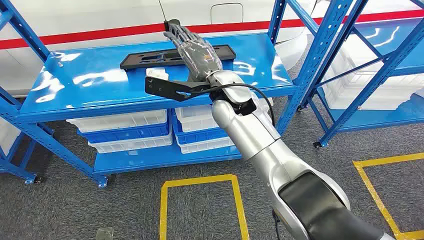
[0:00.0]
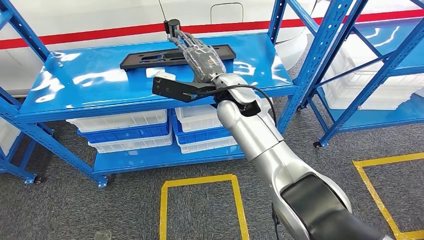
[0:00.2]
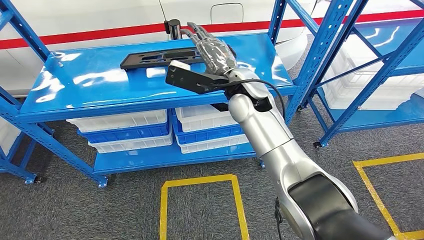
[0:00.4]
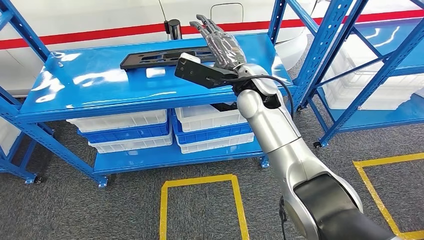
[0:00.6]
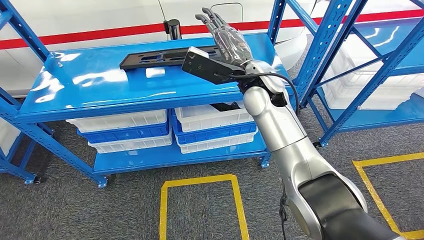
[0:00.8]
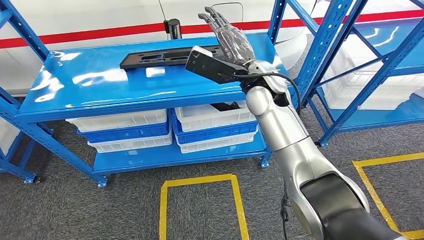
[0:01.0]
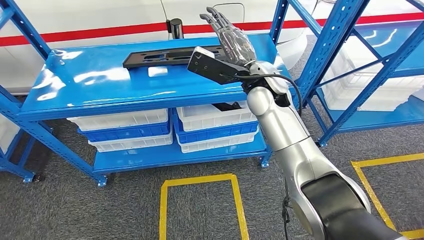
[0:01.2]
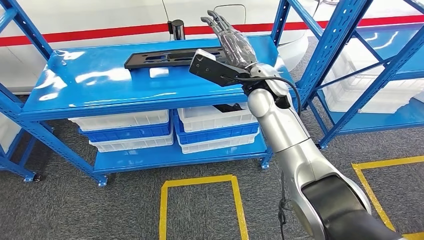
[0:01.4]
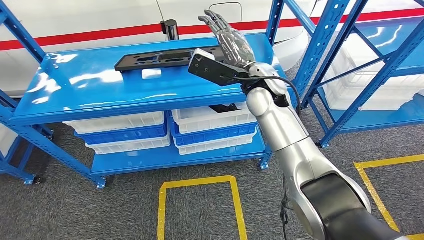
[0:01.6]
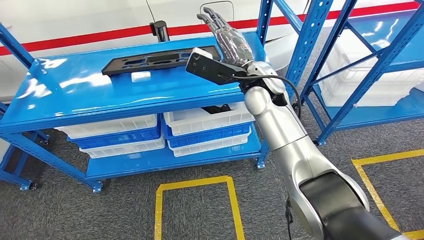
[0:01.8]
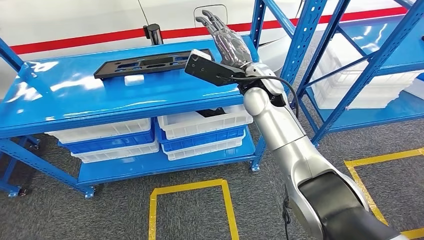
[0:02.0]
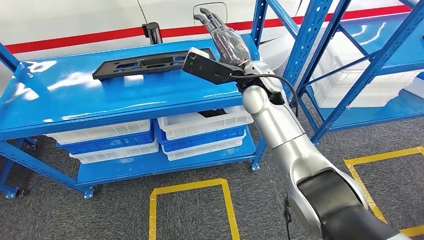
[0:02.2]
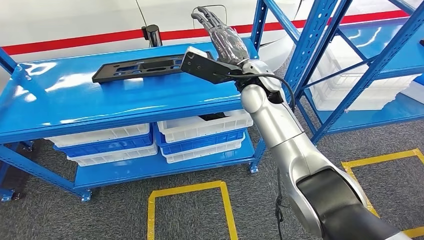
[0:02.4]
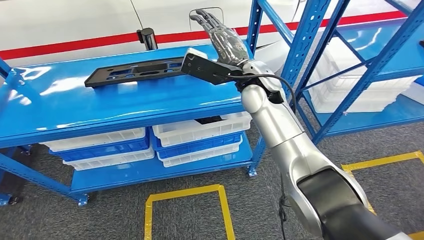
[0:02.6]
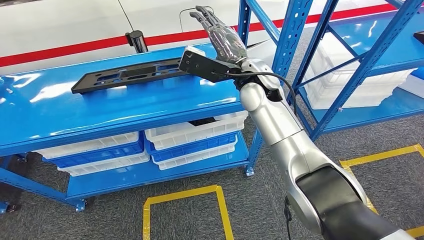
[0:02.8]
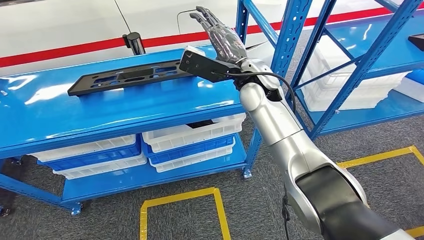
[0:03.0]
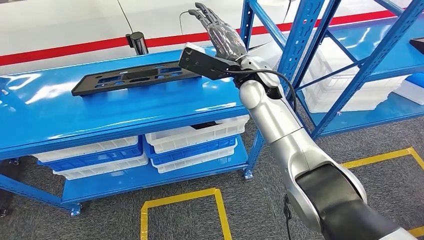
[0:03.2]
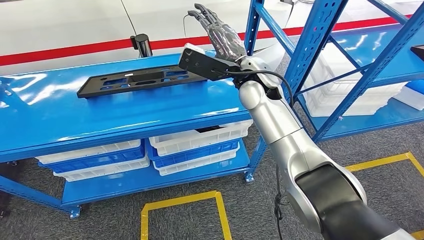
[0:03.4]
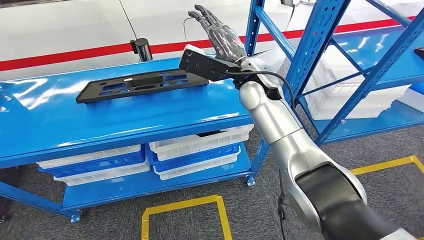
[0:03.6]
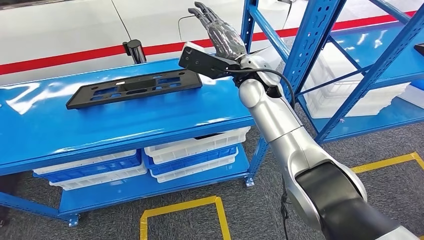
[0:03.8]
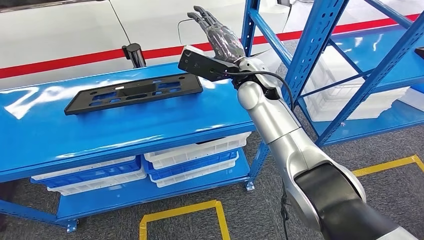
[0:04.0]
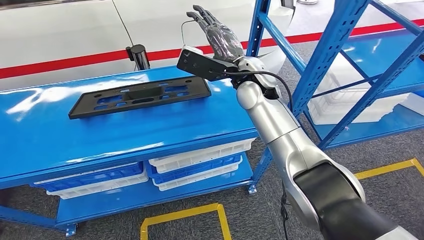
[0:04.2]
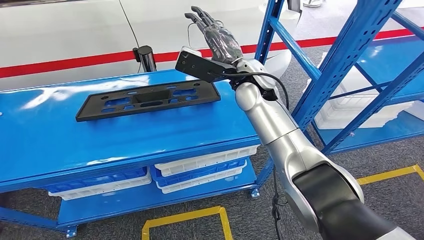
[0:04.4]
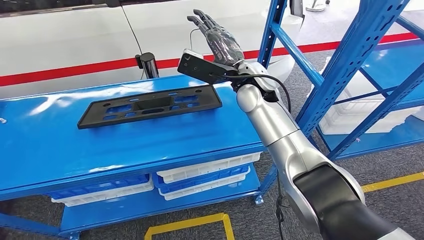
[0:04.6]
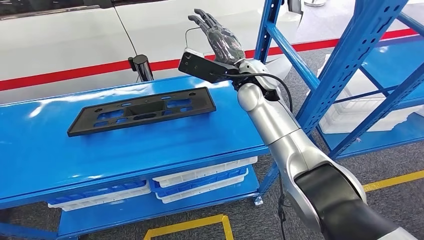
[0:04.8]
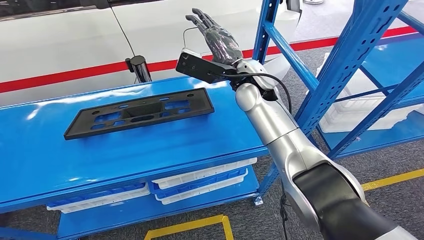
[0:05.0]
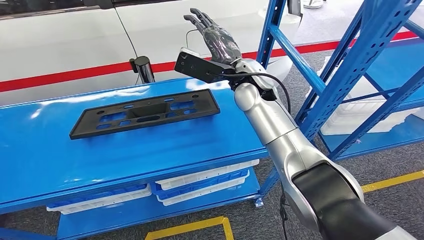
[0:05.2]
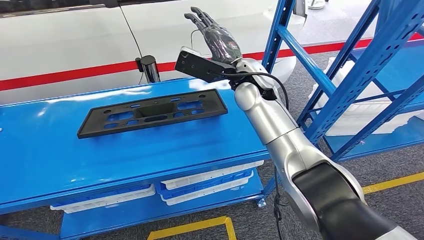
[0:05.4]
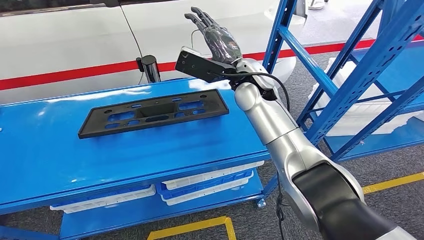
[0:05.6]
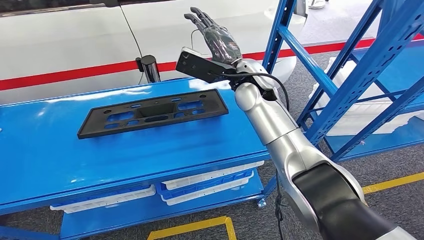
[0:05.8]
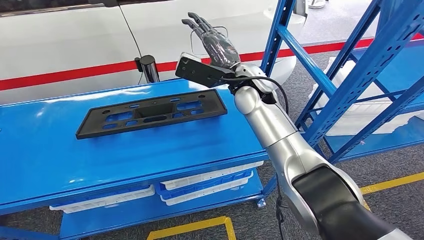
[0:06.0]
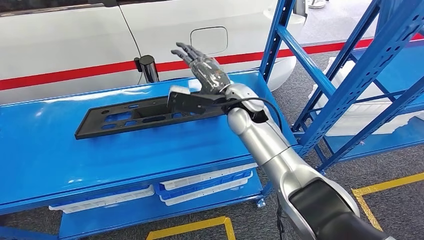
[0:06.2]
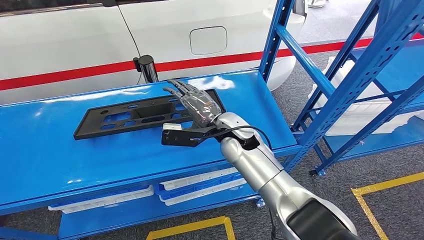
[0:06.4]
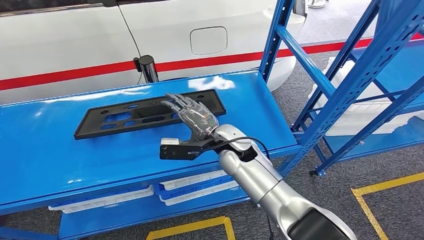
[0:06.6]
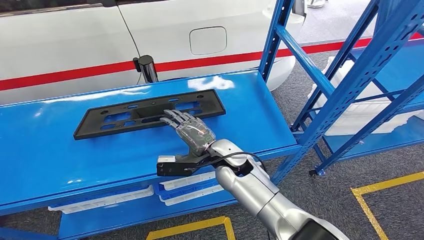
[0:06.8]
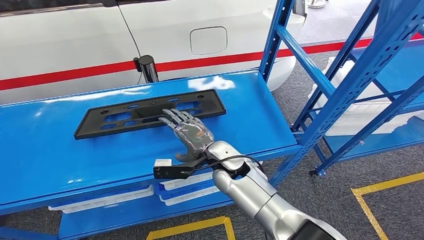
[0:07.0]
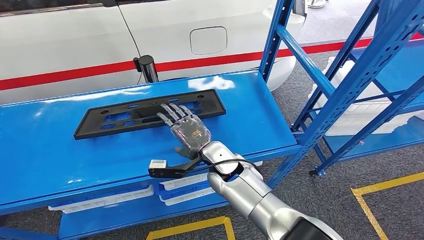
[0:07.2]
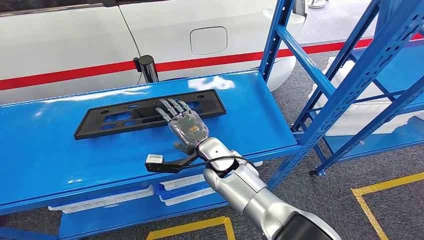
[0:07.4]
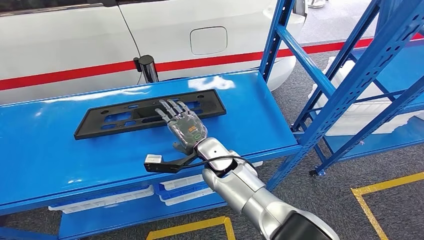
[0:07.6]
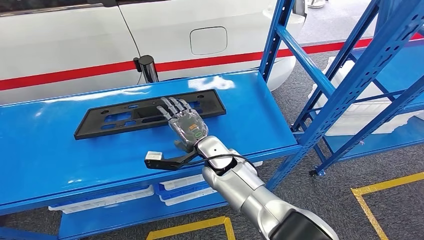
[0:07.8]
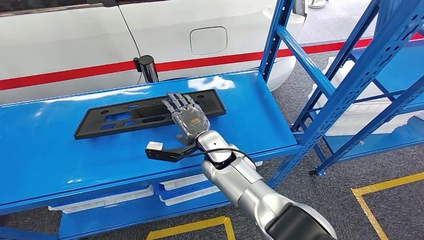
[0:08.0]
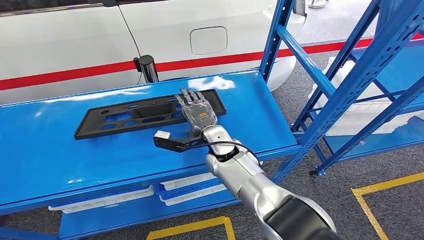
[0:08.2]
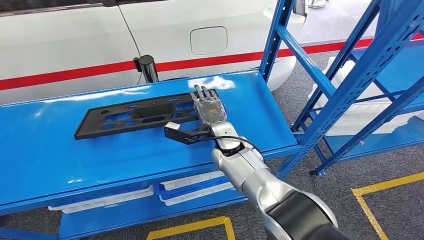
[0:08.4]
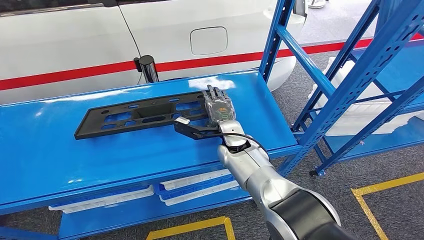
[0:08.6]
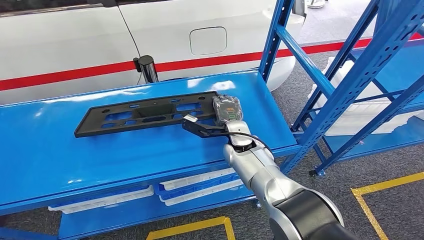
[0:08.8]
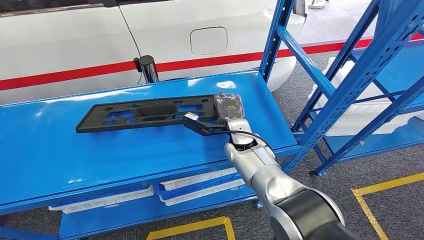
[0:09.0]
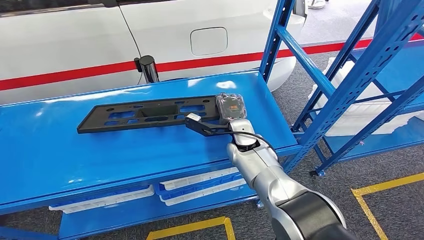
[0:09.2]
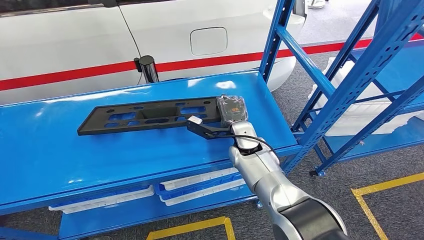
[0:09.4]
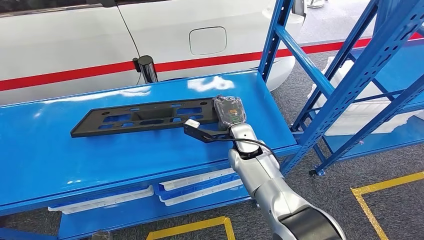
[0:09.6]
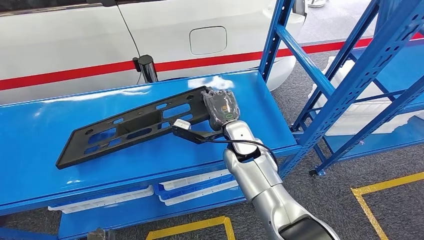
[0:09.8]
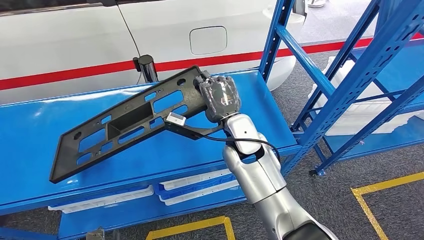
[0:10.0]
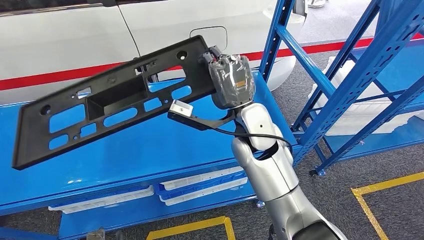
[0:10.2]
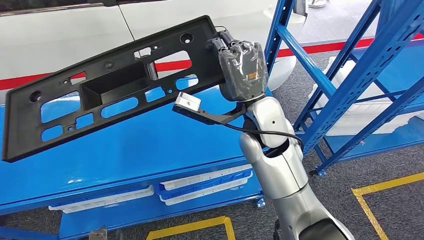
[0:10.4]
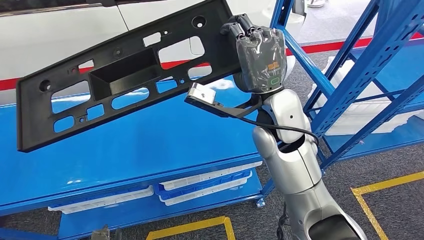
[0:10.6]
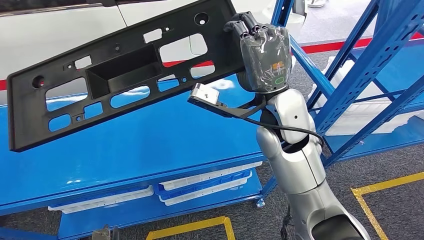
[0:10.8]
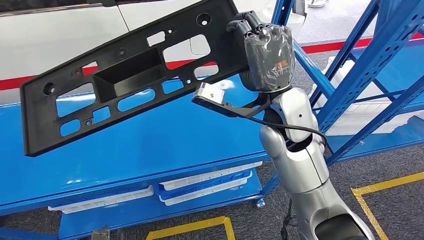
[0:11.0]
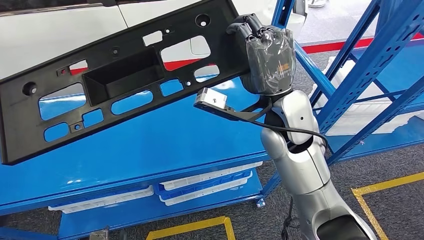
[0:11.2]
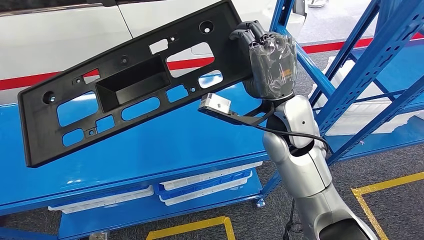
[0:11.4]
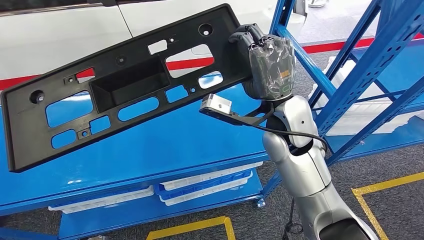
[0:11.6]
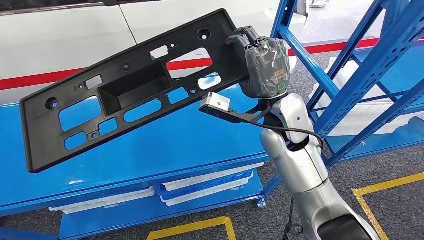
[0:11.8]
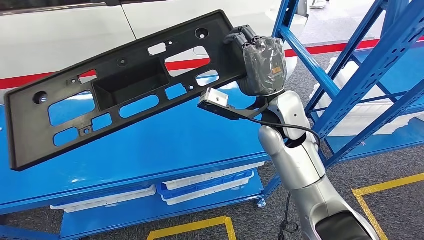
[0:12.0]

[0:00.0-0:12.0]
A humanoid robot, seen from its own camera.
0:06.0 to 0:07.6: The right hand heads downward, to the left and backward, covering some 20 cm.
0:07.6 to 0:09.0: The right hand is displaced to the right and forward by about 10 cm.

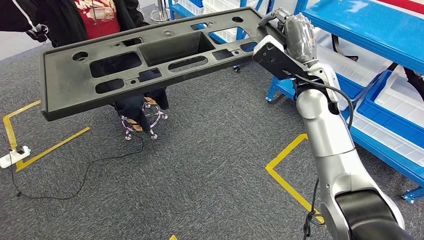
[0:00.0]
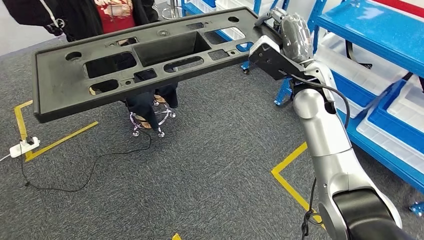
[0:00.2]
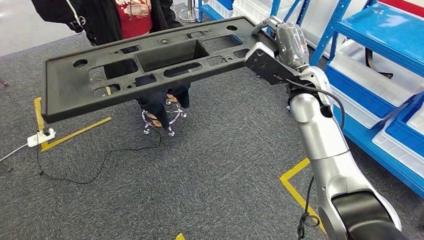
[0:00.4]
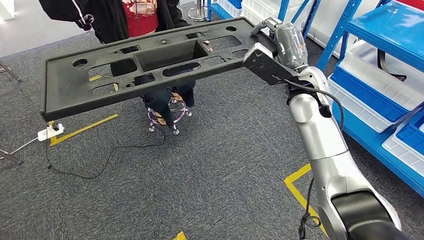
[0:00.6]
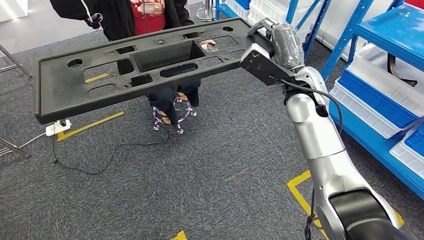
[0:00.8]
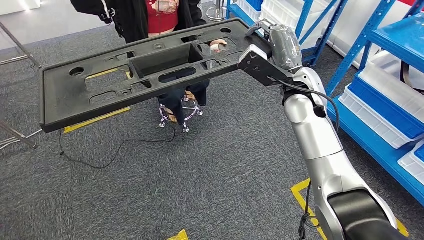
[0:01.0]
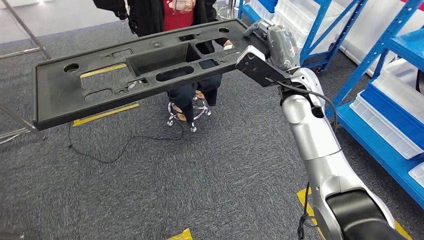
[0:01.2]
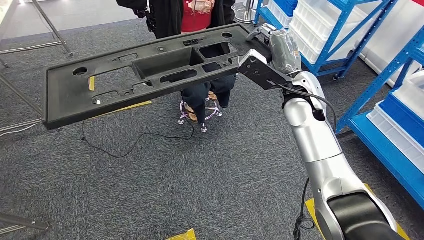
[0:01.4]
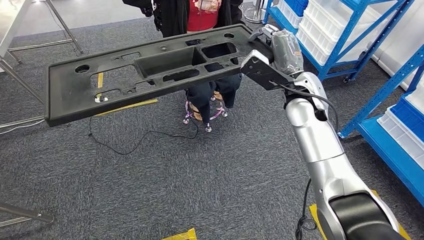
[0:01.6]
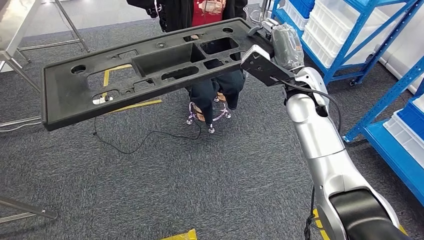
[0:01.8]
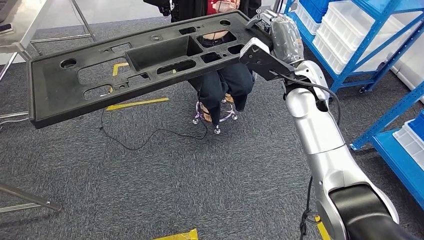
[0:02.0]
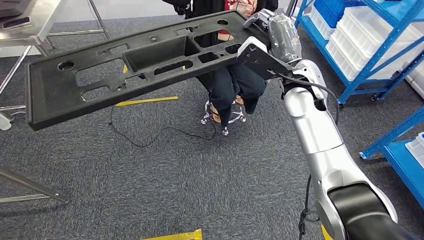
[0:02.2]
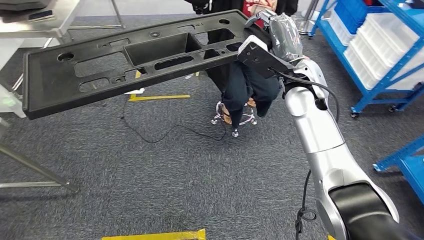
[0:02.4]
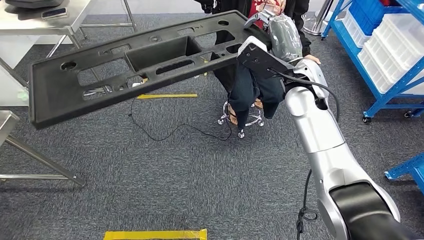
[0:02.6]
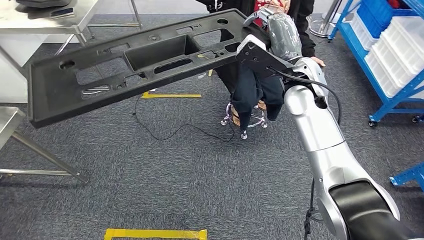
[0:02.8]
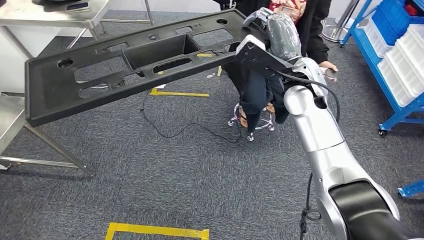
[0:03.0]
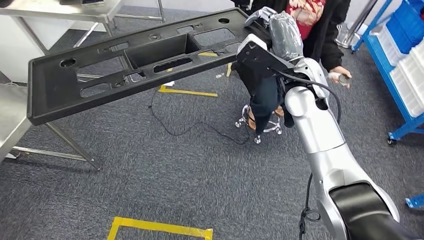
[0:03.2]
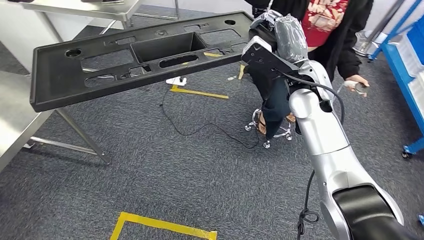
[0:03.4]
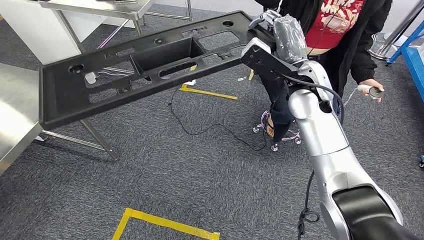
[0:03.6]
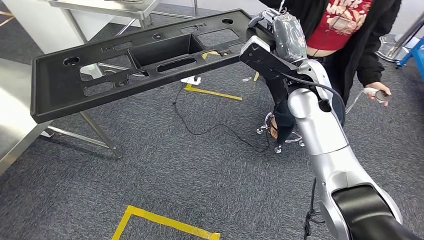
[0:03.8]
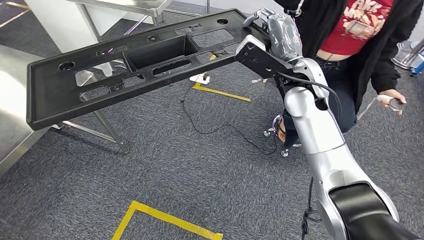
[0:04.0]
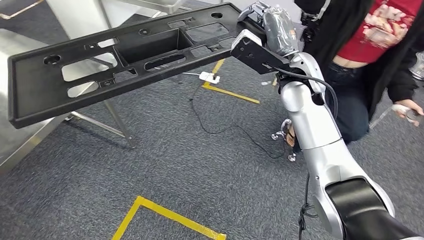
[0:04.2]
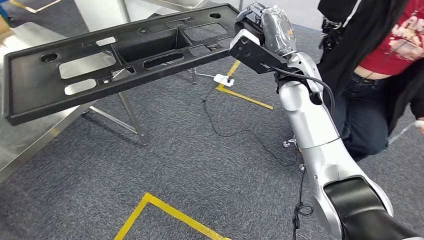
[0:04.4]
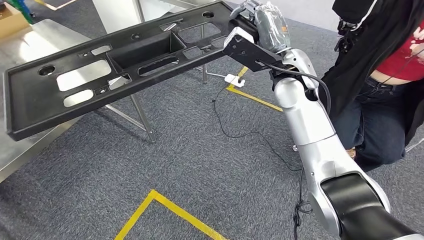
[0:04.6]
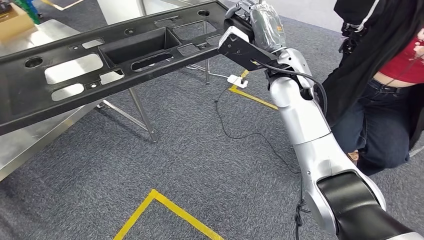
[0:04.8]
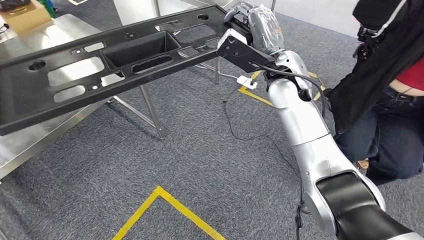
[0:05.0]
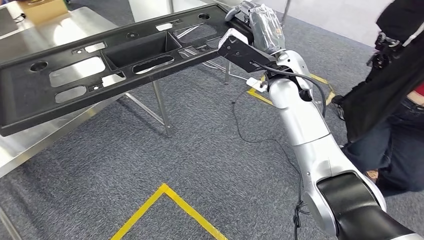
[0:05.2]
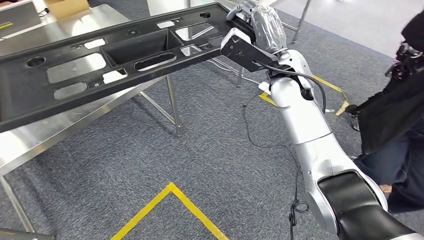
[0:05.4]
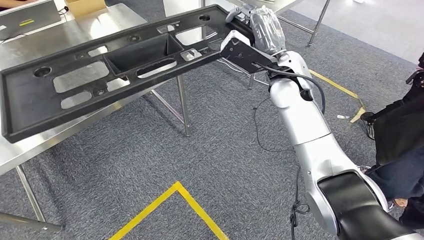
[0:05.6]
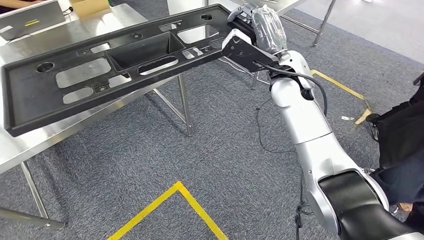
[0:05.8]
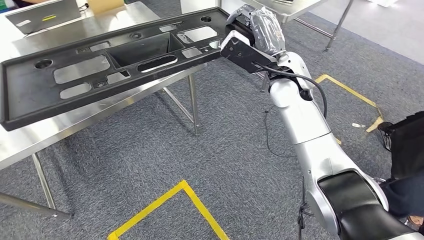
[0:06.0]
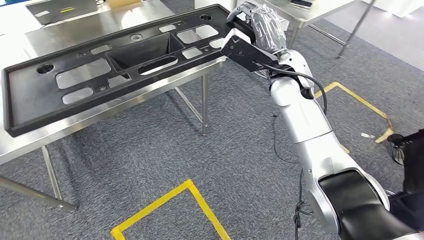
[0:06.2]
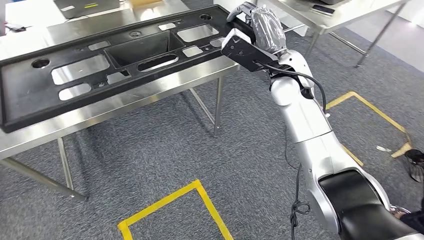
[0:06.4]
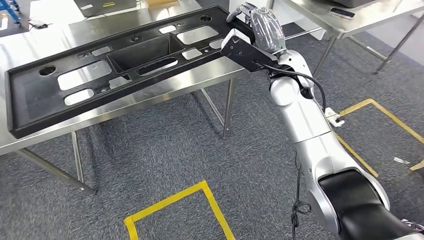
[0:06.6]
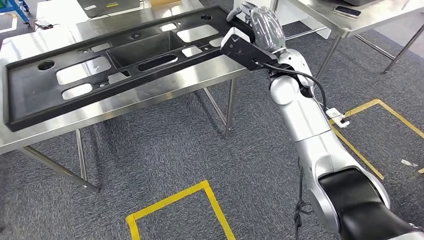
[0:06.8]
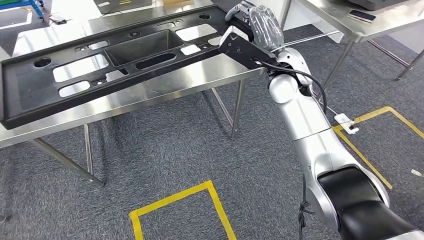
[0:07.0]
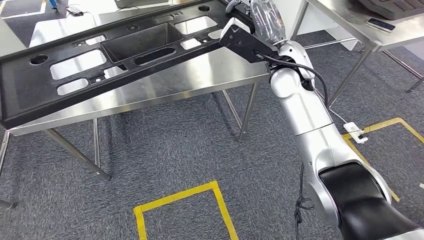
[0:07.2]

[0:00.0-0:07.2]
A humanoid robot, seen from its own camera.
Step, 0:00.0 to 0:05.8: Move the large material to the workbench.